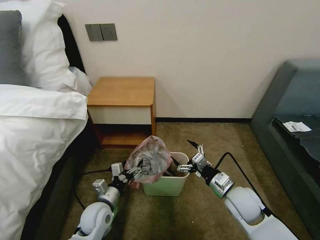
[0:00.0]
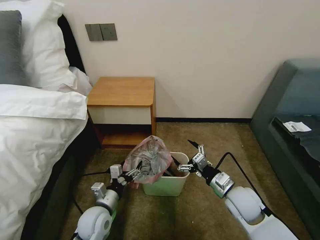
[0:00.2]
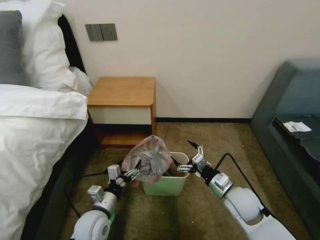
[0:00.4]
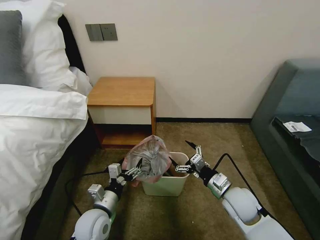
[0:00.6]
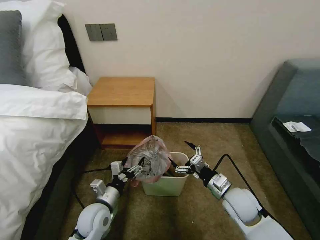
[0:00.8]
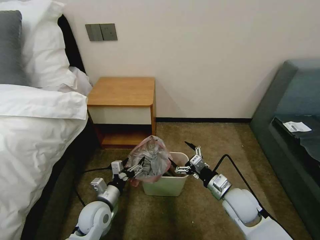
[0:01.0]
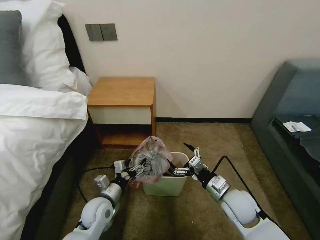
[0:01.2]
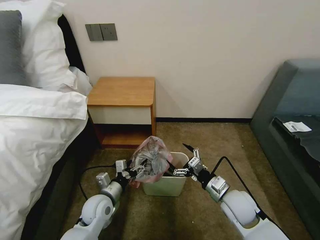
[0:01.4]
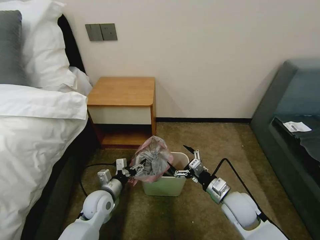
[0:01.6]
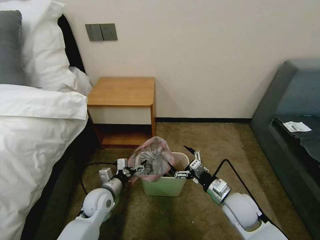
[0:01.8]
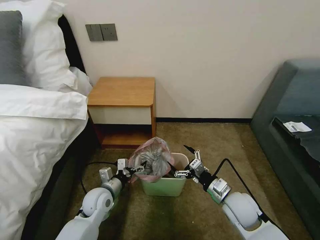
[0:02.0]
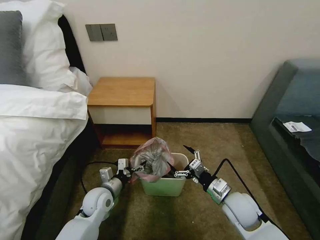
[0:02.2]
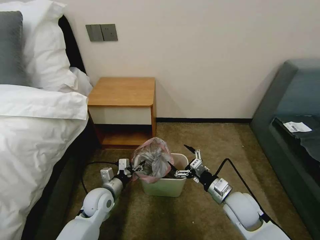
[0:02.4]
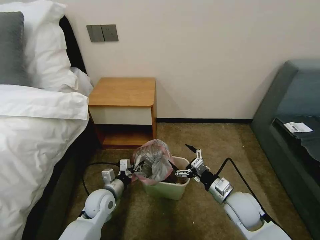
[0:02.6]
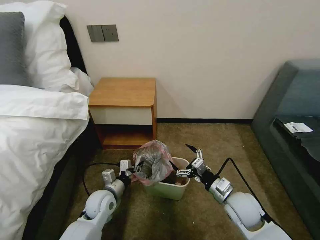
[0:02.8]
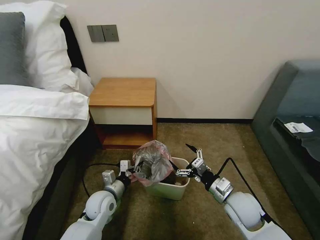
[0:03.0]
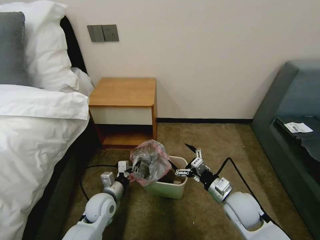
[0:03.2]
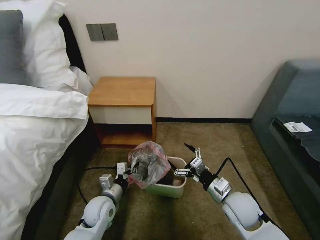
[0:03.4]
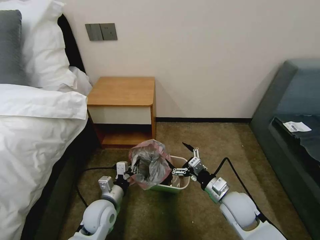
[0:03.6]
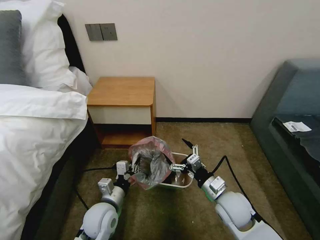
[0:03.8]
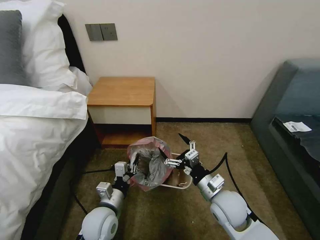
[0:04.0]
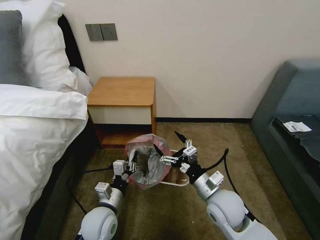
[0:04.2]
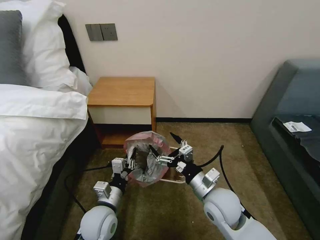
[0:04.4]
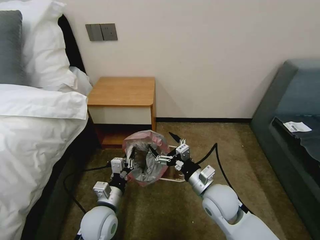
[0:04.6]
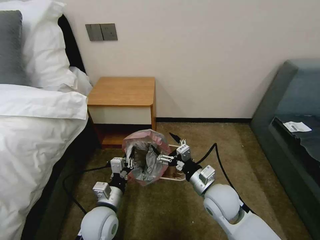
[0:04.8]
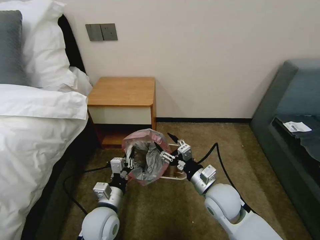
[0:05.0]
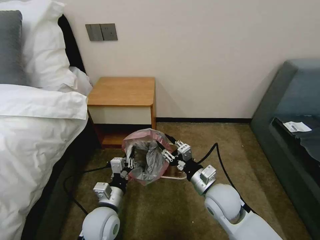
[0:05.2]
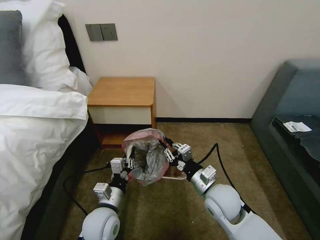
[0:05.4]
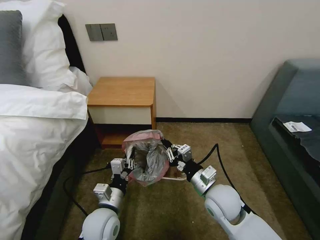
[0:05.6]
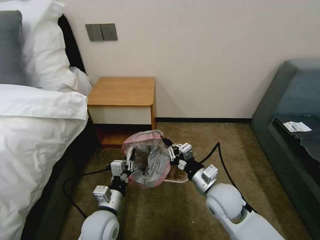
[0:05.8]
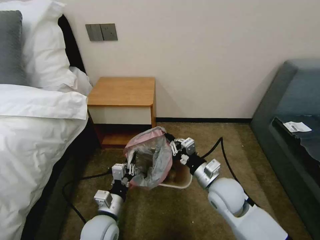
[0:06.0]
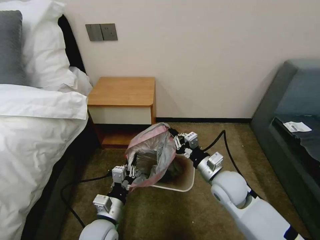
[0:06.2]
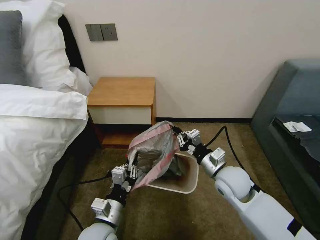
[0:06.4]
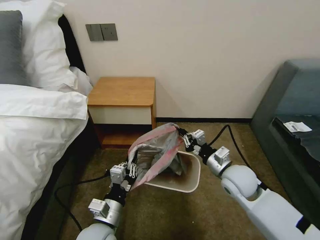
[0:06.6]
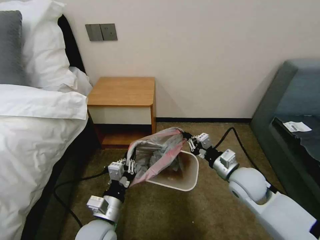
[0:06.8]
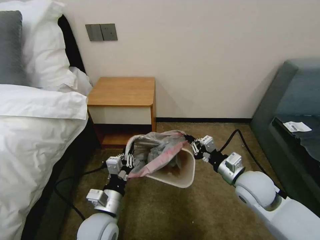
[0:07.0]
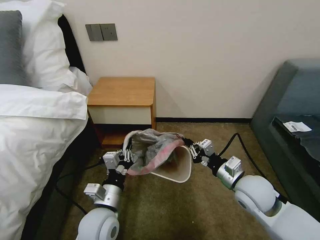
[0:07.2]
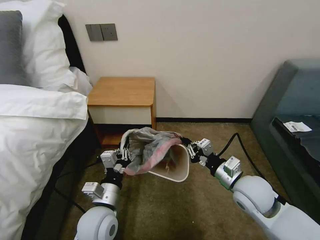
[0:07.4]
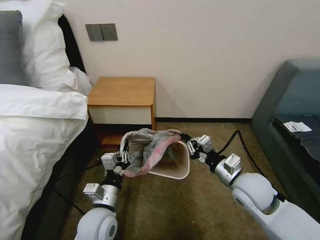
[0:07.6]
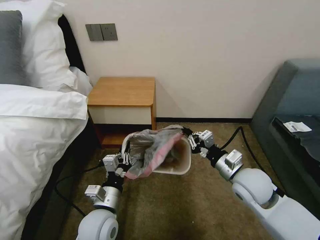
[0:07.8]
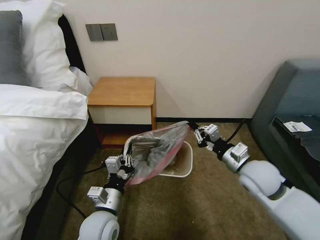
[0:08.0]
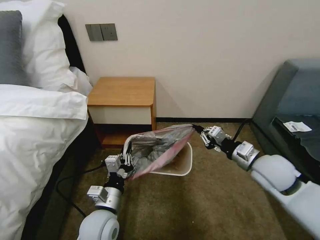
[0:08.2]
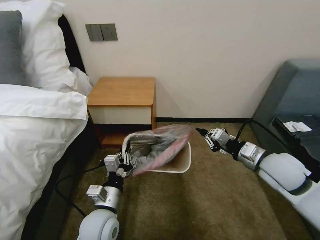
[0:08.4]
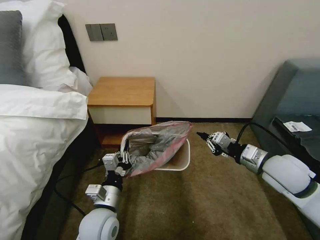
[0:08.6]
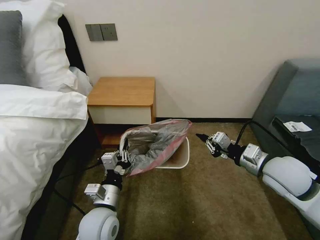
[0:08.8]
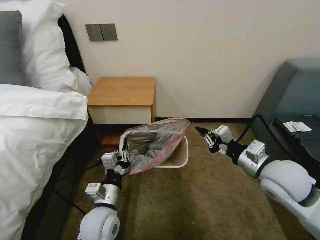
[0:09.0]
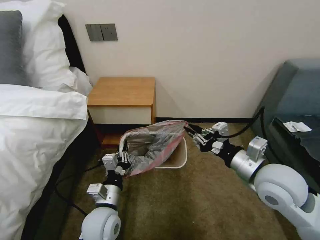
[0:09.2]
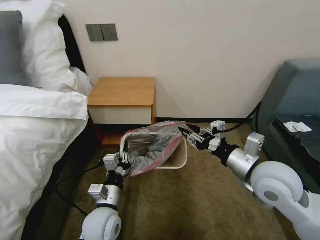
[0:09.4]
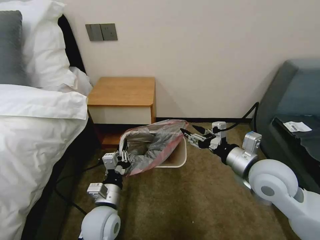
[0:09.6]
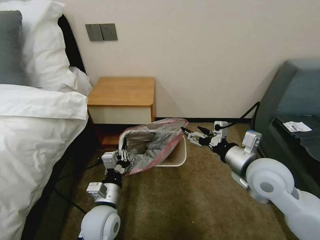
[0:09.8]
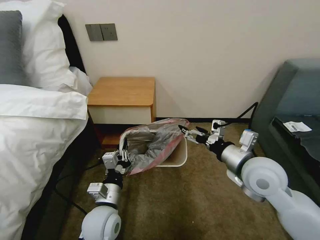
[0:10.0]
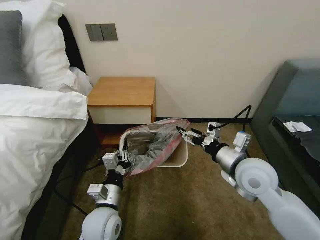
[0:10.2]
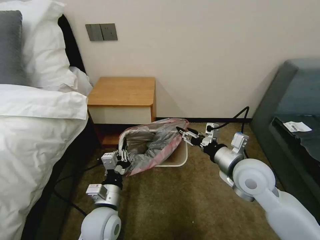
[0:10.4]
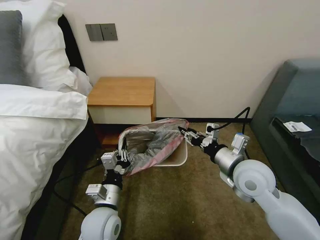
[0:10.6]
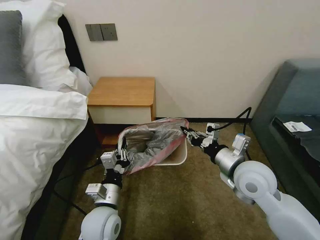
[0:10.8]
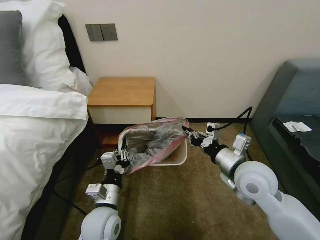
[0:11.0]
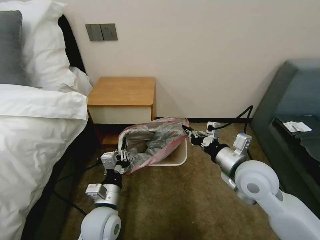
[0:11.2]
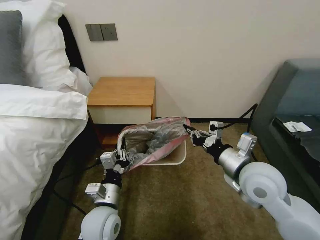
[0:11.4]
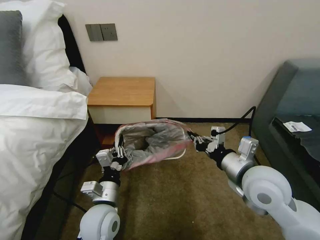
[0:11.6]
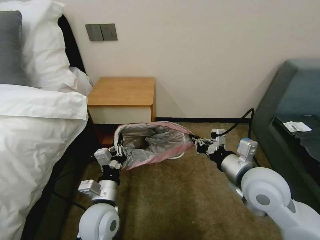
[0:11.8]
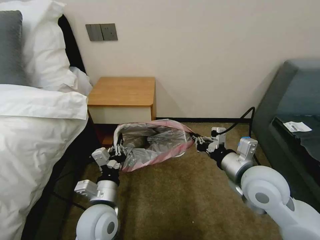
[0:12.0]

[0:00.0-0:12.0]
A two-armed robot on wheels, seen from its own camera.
Task of the whole recording: Pick up the garbage bag from the table and place it over the trash can.
0:00.0 to 0:01.6: There are only small adjustments of the grippers.
0:01.6 to 0:03.0: The left gripper closes up.
0:03.0 to 0:04.4: The right gripper travels to the left by about 10 cm; the left gripper moves backward and upward, roughly 10 cm.
0:04.4 to 0:06.0: The right gripper closes up.
0:06.0 to 0:07.6: The right gripper heads to the right, covering about 5 cm.
0:07.6 to 0:09.0: The right gripper goes some 10 cm upward and to the right.
0:09.0 to 0:10.4: The right gripper moves to the left, approximately 5 cm, and opens up.
0:10.4 to 0:12.0: The right gripper closes up.

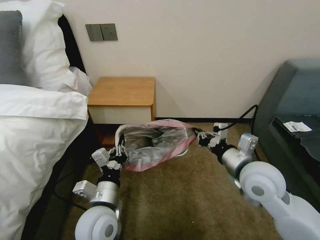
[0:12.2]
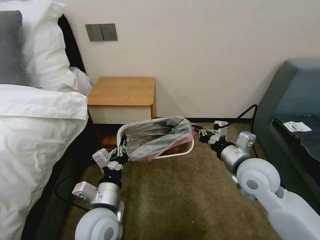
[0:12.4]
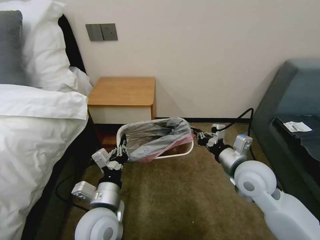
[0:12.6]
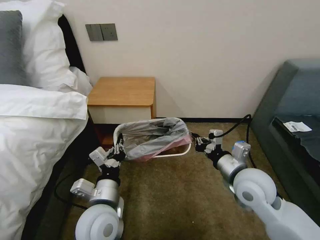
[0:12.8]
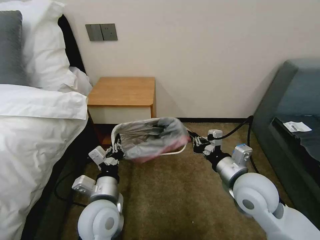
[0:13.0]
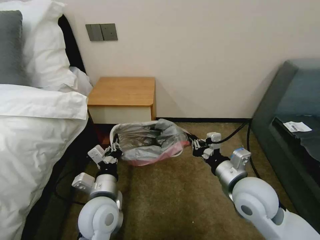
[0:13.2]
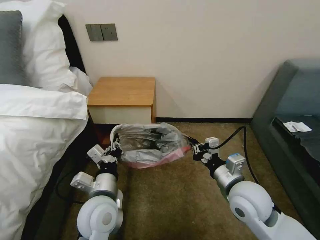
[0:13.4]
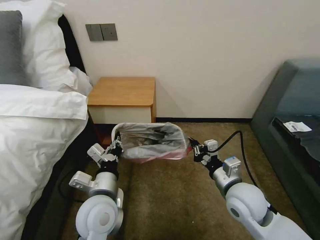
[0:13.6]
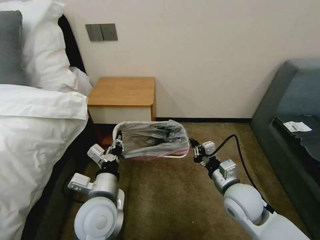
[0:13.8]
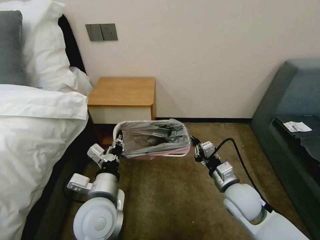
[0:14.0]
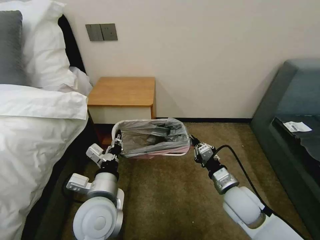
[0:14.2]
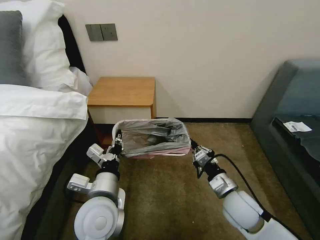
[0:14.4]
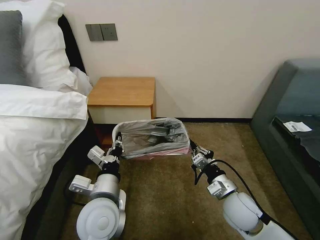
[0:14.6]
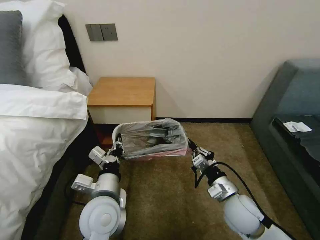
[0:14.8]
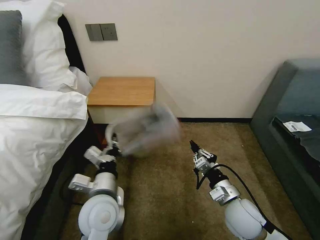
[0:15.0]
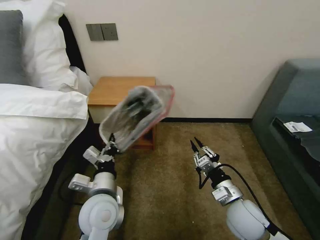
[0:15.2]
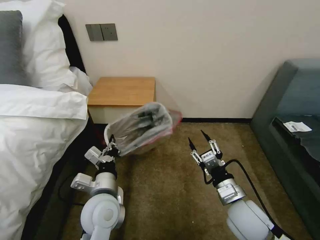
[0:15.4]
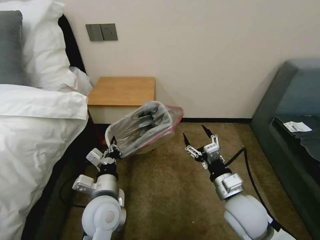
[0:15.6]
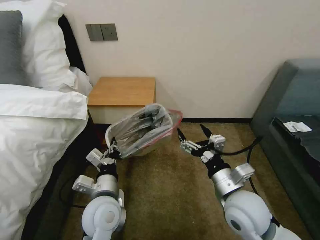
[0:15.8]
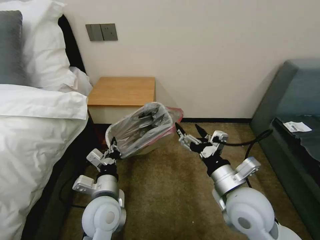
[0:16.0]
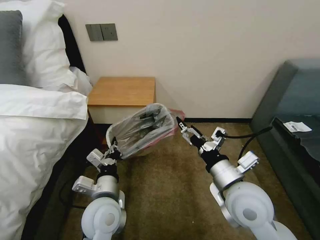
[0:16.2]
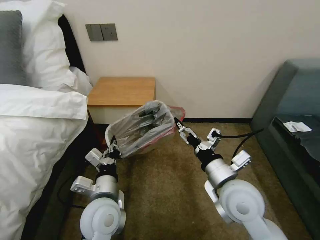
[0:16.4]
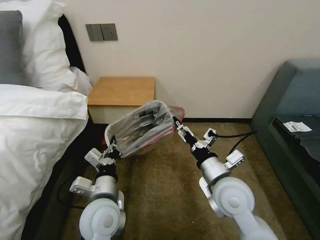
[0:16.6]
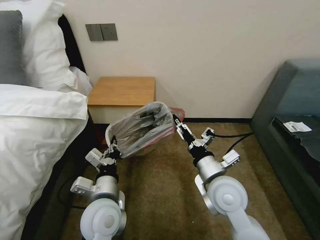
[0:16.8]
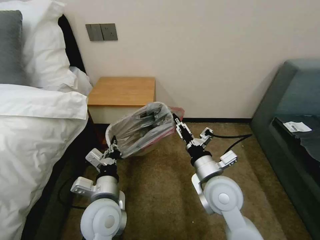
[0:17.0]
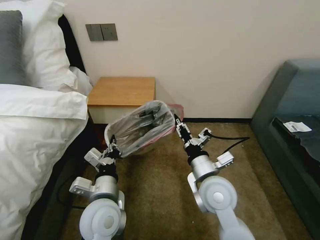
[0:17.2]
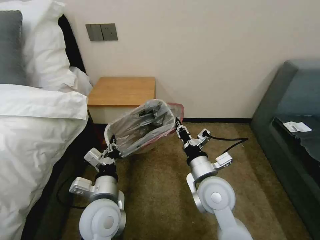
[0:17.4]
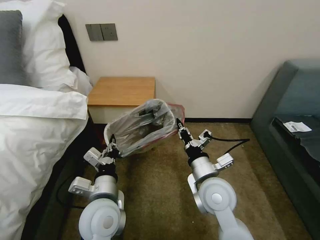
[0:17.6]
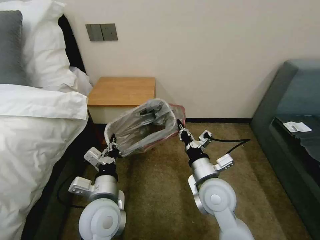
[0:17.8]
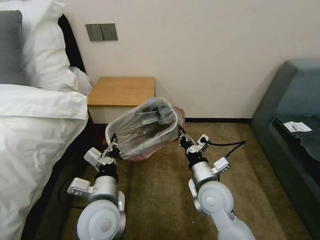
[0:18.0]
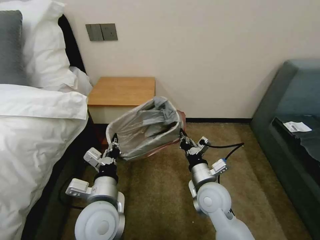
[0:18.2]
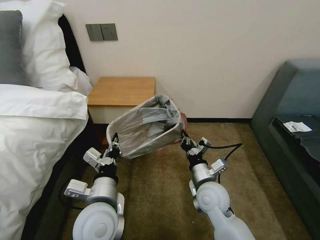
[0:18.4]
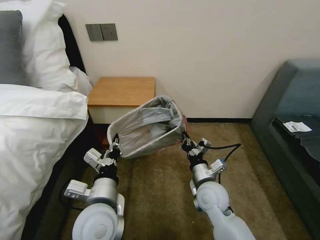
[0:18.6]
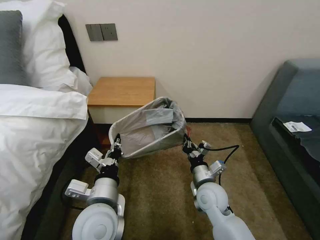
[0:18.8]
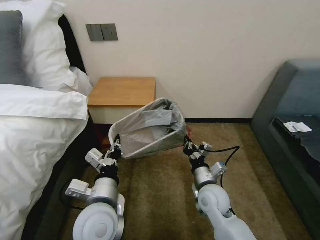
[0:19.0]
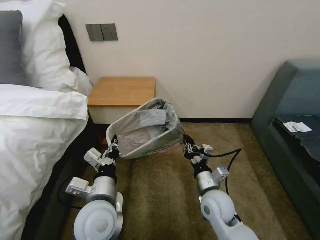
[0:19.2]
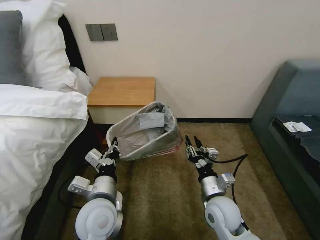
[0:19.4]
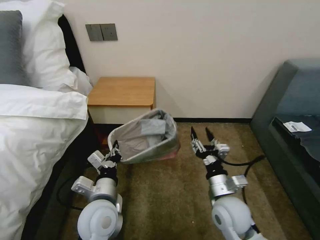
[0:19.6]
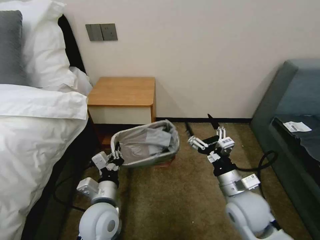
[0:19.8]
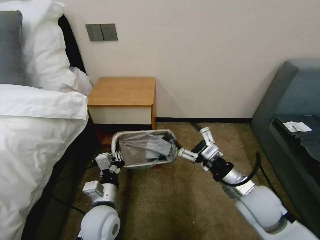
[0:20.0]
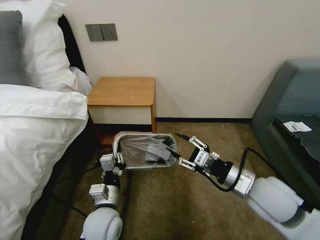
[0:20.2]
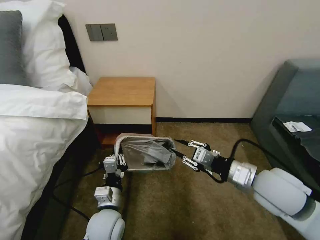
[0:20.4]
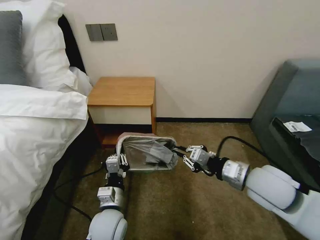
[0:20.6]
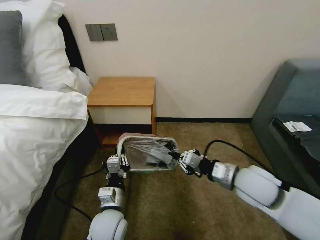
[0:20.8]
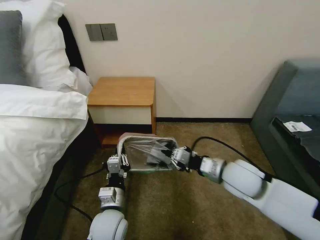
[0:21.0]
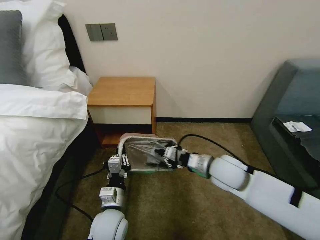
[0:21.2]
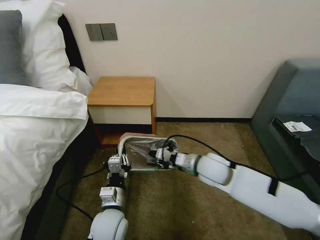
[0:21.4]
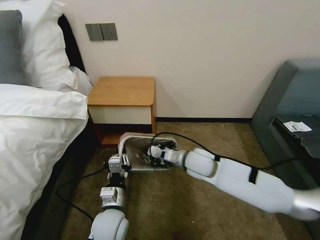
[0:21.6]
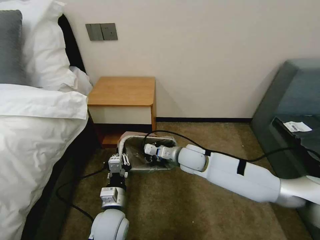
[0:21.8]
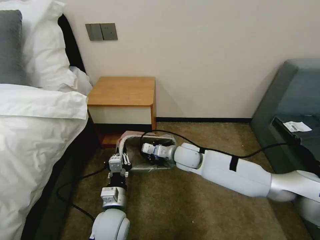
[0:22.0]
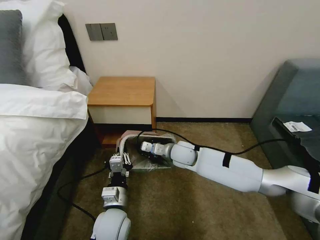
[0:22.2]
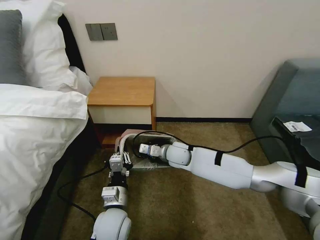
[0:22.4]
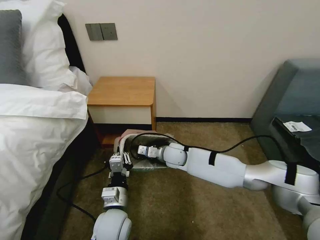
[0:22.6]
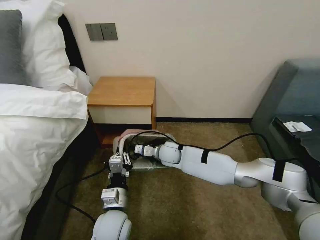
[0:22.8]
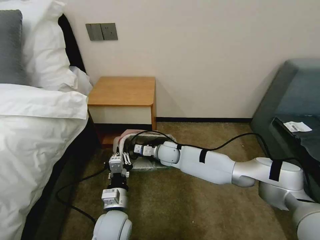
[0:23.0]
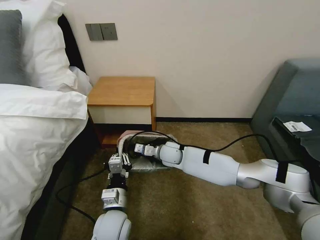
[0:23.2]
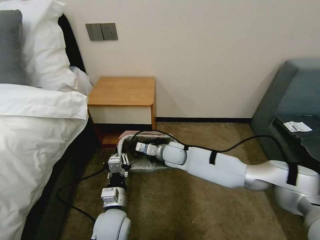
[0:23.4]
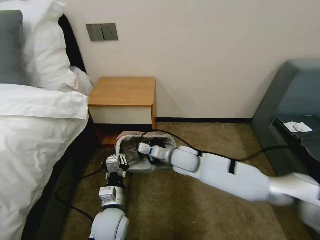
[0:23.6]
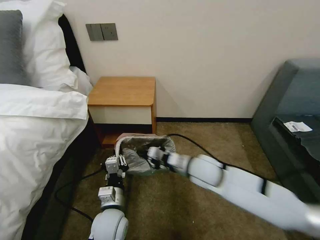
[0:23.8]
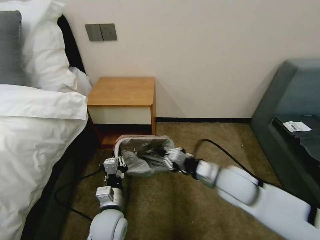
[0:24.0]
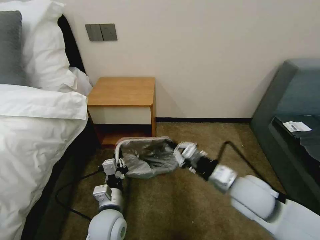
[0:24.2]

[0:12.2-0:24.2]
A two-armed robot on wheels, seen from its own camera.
Task of the whole recording: Pick up the garbage bag from the table and place it over the trash can.
0:12.2 to 0:13.8: The right gripper moves downward, some 10 cm.
0:15.2 to 0:16.6: The right gripper moves upward and to the left, about 10 cm, and opens.
0:16.6 to 0:18.2: The right gripper heads downward, covering about 10 cm, and closes.
0:18.2 to 0:19.8: The left gripper moves downward, about 5 cm, while the right gripper travels to the right by approximately 5 cm, and opens.
0:19.8 to 0:21.2: The left gripper moves downward, approximately 5 cm, while the right gripper moves forward, about 10 cm, and closes.
0:21.2 to 0:22.6: The right gripper goes some 20 cm to the left, forward and downward.
0:22.6 to 0:24.2: The right gripper is displaced backward, to the right and upward by some 30 cm.
